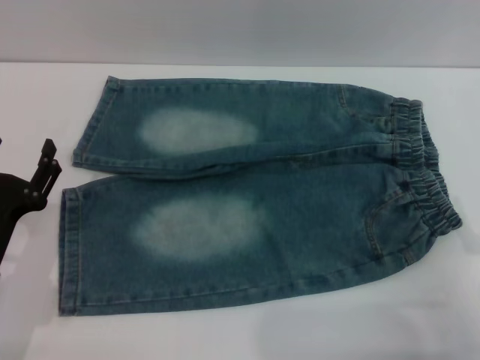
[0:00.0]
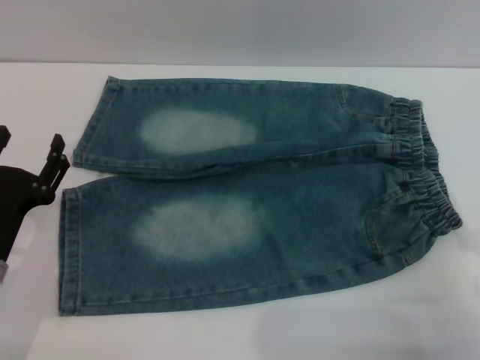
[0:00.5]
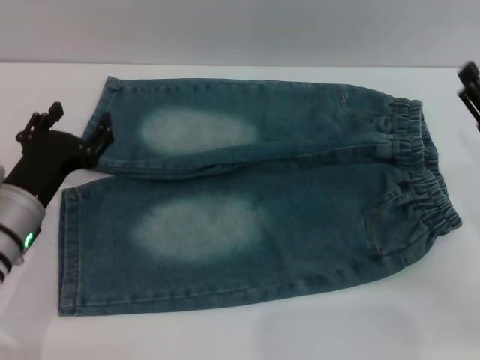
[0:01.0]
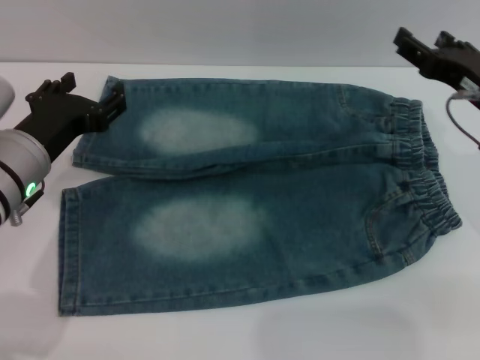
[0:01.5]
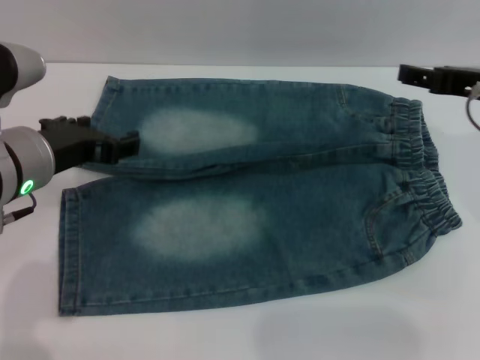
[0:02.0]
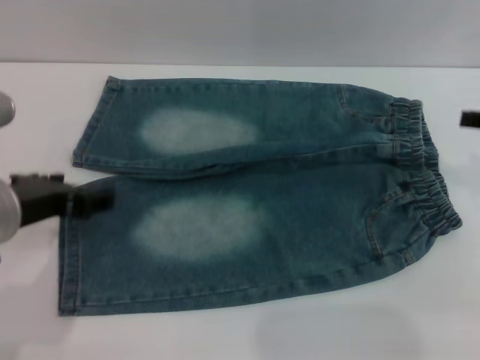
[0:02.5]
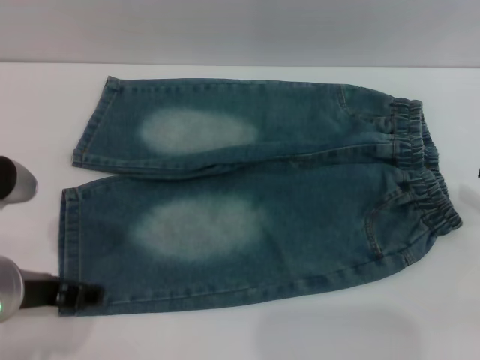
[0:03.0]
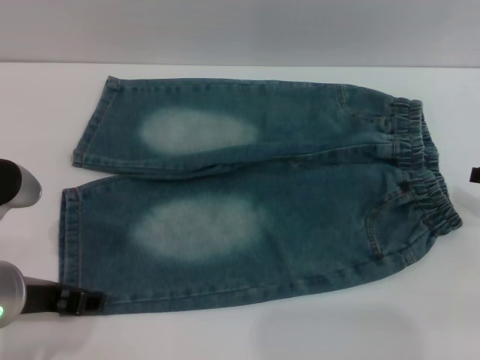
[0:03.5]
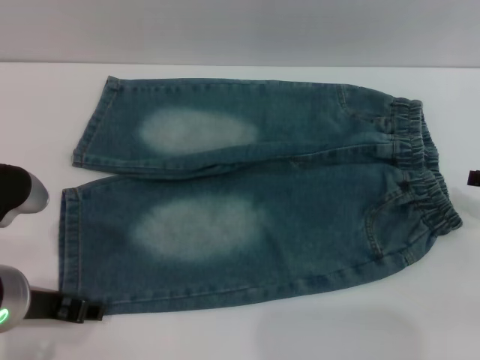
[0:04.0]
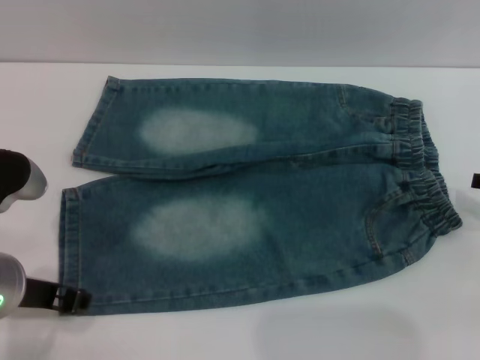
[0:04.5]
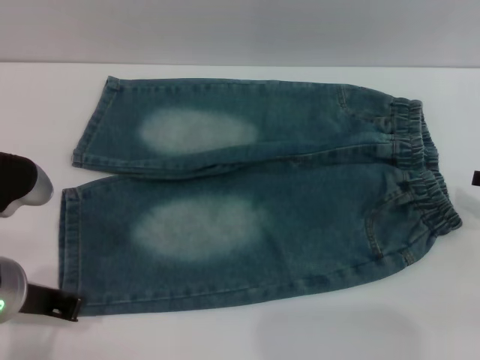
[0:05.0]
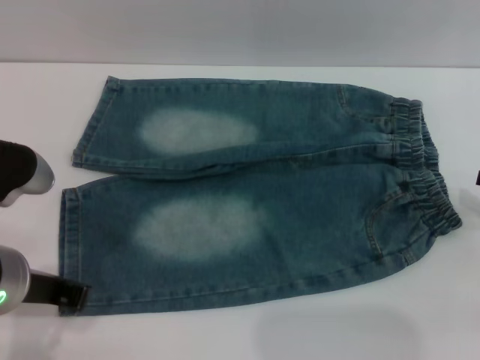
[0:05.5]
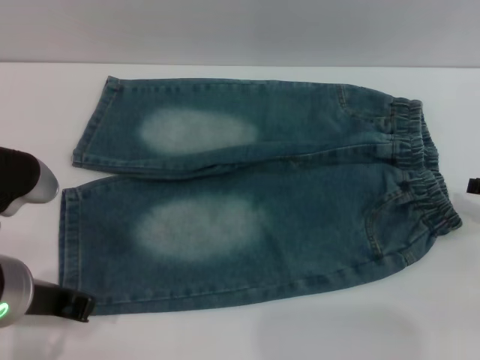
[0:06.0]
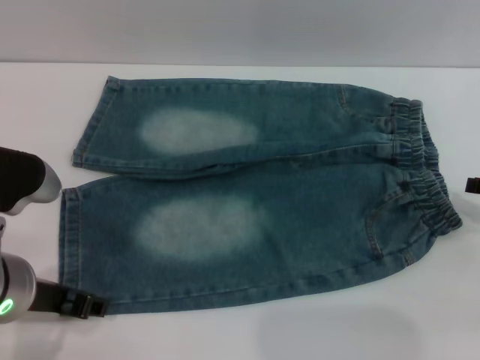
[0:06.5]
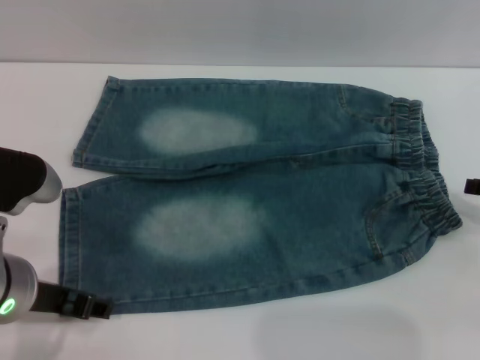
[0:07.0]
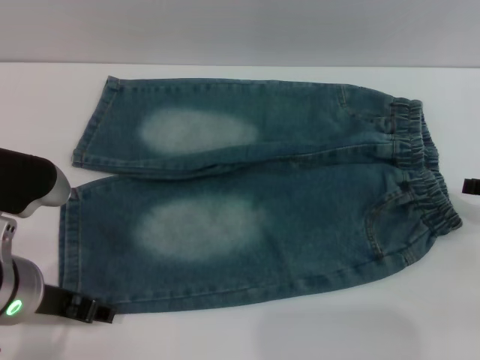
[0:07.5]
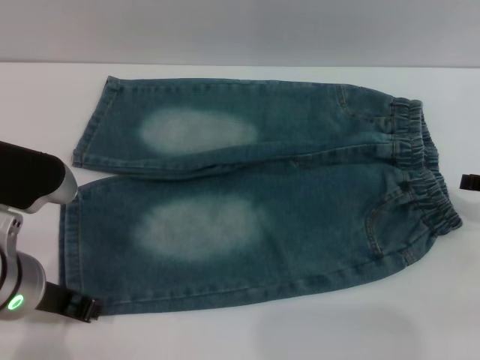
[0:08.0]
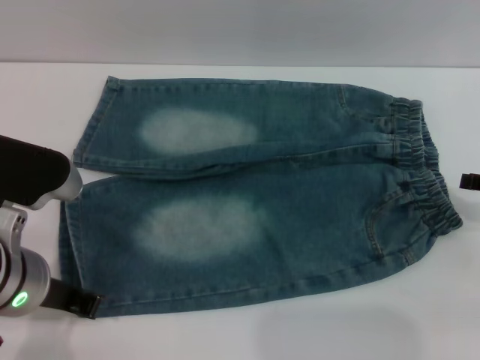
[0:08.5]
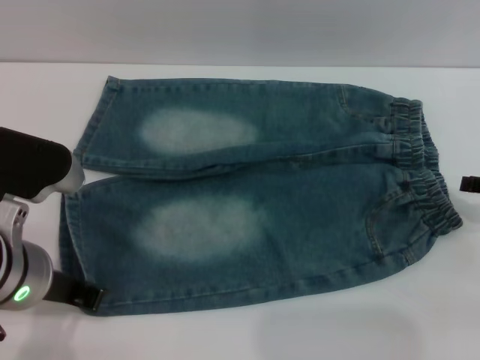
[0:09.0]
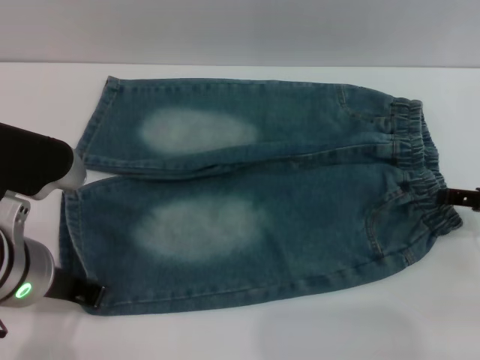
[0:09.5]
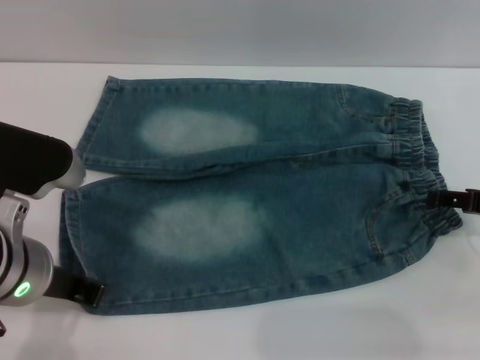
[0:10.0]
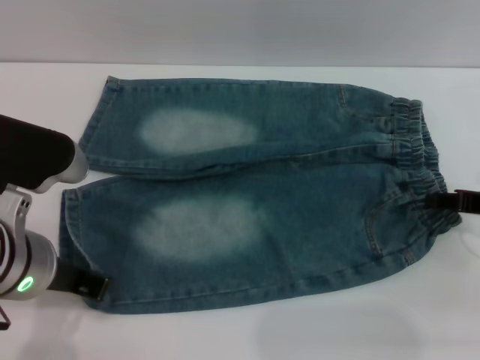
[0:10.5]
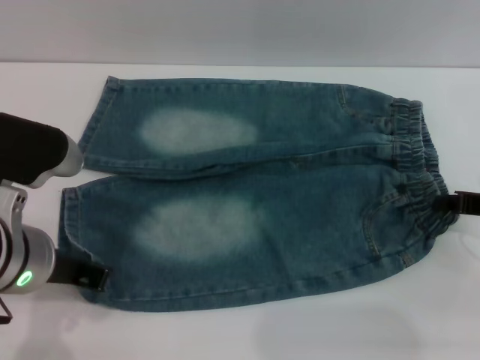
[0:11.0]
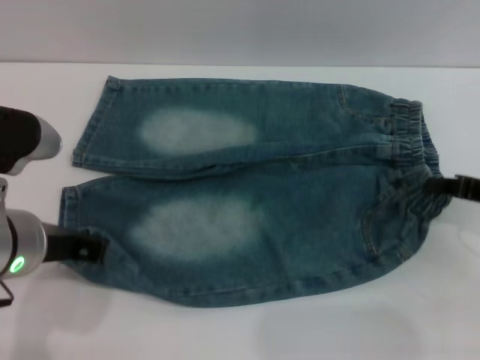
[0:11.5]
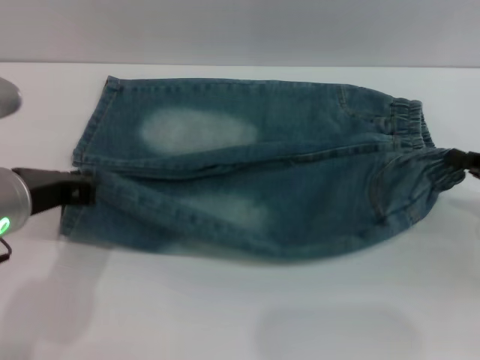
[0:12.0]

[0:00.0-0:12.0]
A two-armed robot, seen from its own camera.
0:00.0 to 0:02.0: The left gripper is displaced upward, forward and to the right by roughly 15 cm. Meanwhile the right gripper heads forward and upward, covering some 25 cm.
0:02.0 to 0:04.0: The right gripper moves to the right, backward and downward, about 10 cm, while the left gripper is displaced backward by approximately 5 cm.
0:04.0 to 0:06.0: The left gripper closes its fingers.
0:06.0 to 0:08.0: The left gripper opens its fingers.
0:08.0 to 0:10.0: The left gripper closes up.
0:10.0 to 0:12.0: The right gripper closes its fingers.

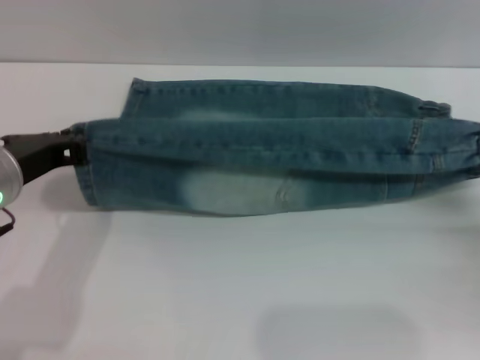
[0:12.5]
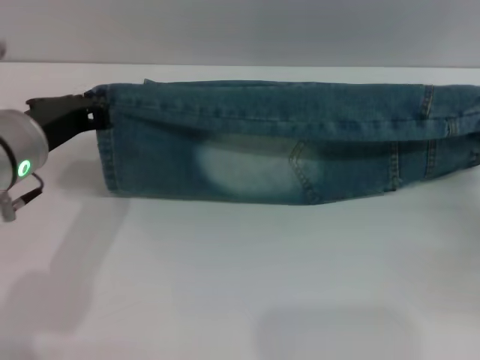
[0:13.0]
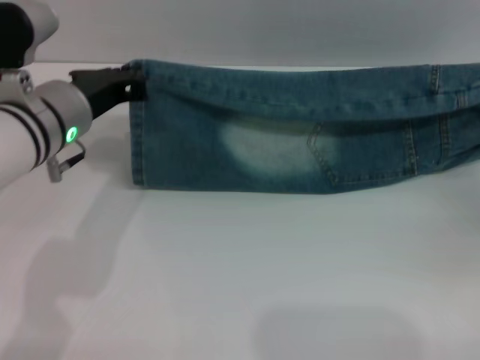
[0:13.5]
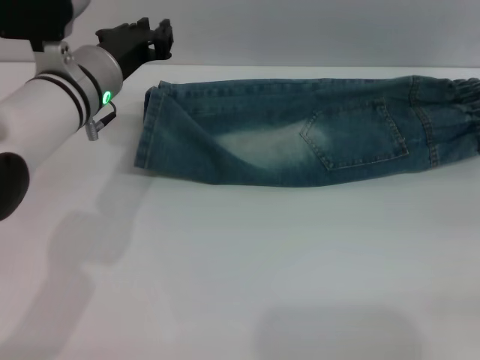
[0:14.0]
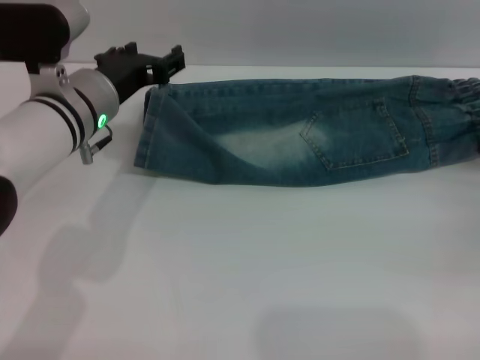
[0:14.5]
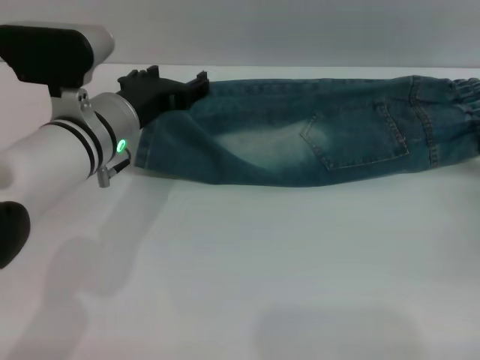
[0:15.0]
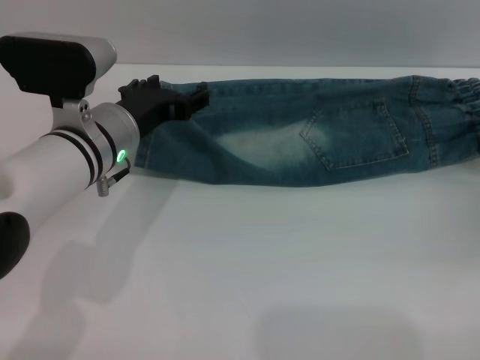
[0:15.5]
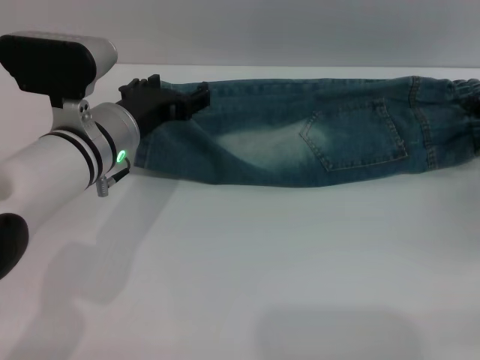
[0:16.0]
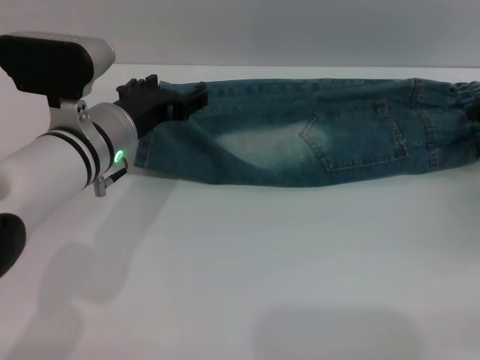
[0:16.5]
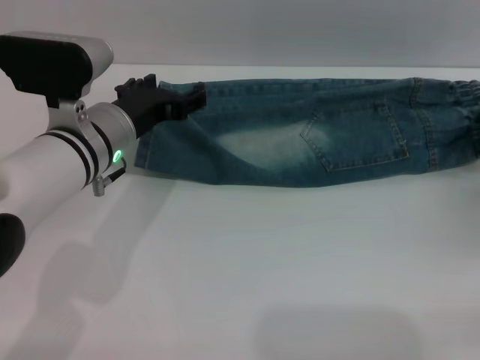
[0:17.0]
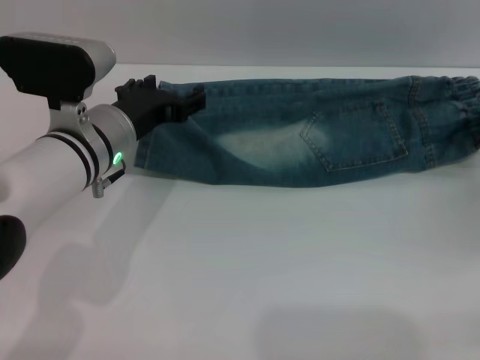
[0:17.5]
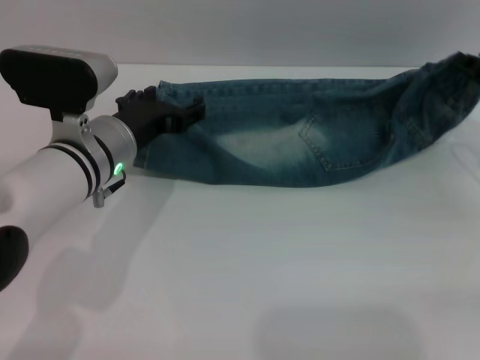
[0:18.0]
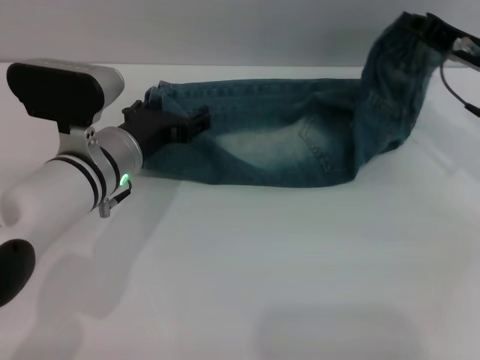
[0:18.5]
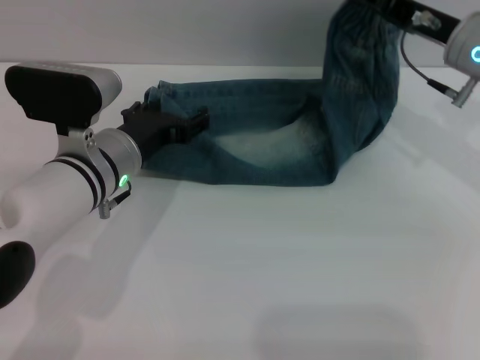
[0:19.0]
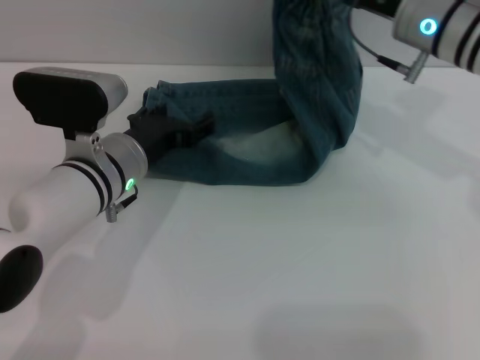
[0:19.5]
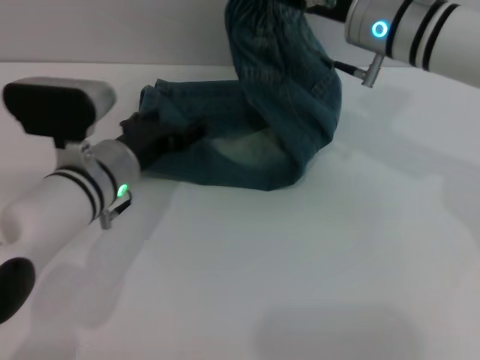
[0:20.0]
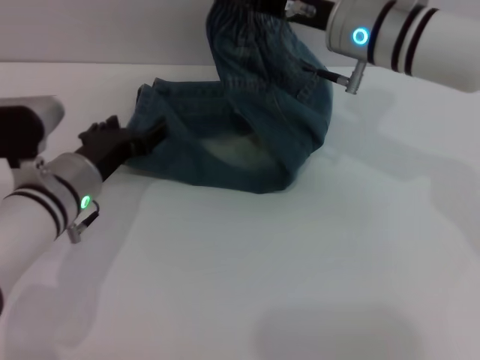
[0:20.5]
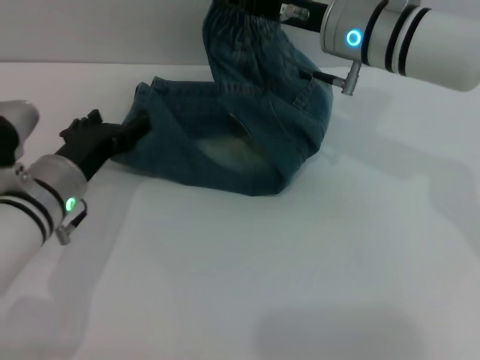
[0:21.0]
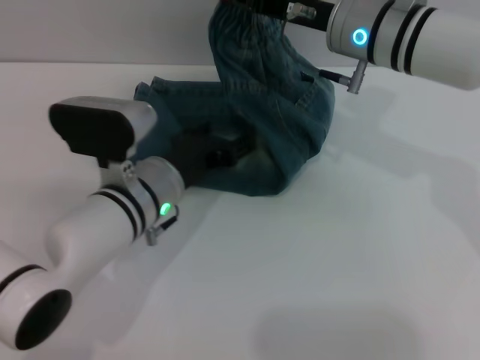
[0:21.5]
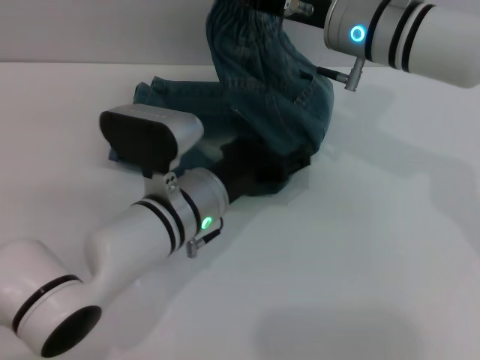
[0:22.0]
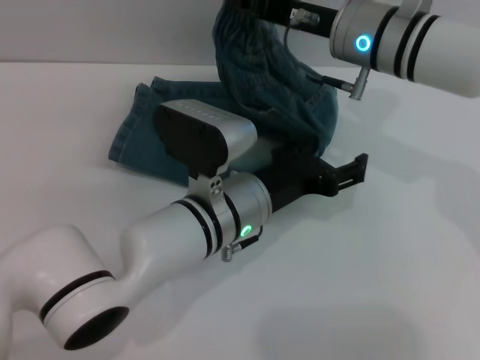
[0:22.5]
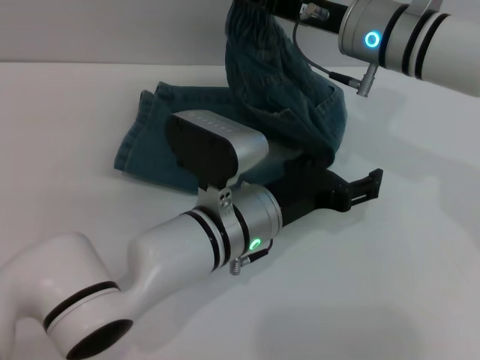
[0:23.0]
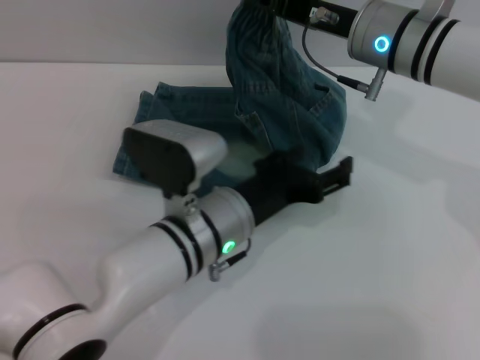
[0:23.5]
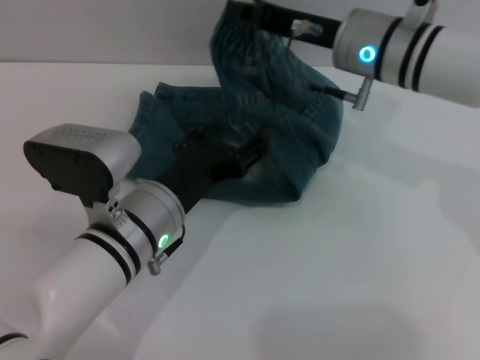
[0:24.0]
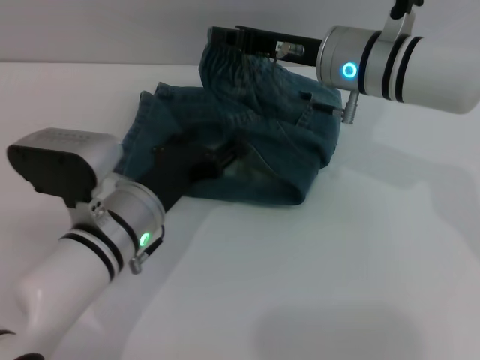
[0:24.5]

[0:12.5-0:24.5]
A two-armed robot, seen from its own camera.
0:12.5 to 0:14.5: The right gripper shifts roughly 5 cm forward, and opens; the left gripper shifts roughly 10 cm forward and to the right, and opens up.
0:14.5 to 0:16.5: The grippers move only a little.
0:16.5 to 0:18.5: The right gripper goes roughly 15 cm upward, to the left and forward, and closes.
0:18.5 to 0:20.5: The right gripper moves to the left, some 15 cm.
0:20.5 to 0:22.5: The left gripper shifts roughly 15 cm to the right.
0:22.5 to 0:24.5: The left gripper goes approximately 10 cm to the left.

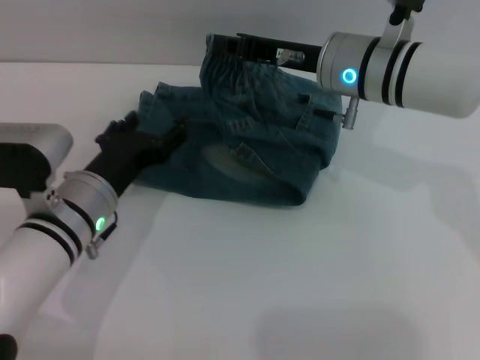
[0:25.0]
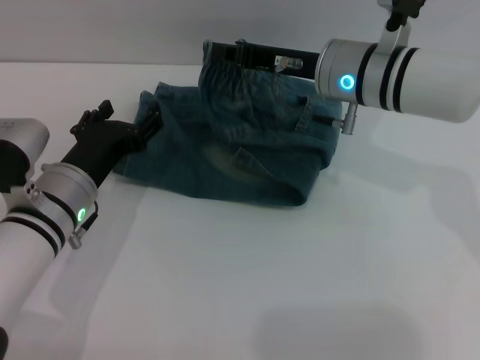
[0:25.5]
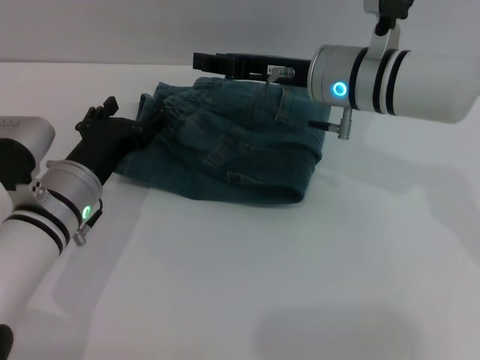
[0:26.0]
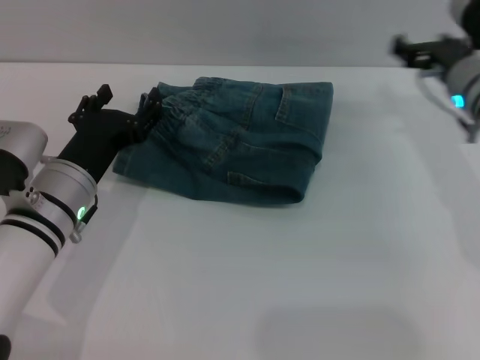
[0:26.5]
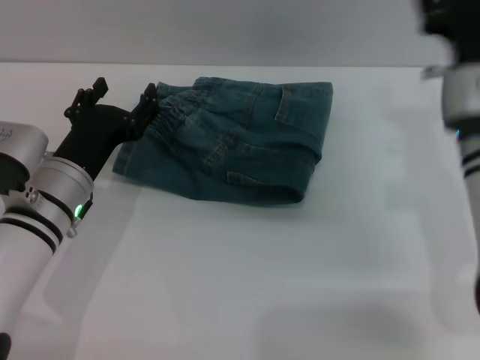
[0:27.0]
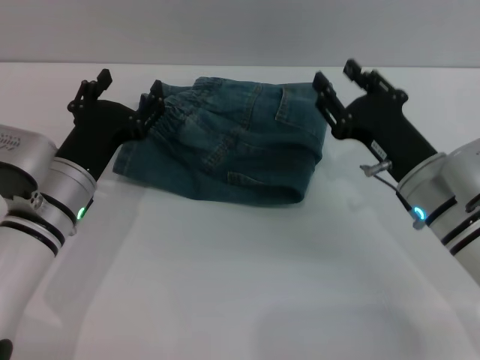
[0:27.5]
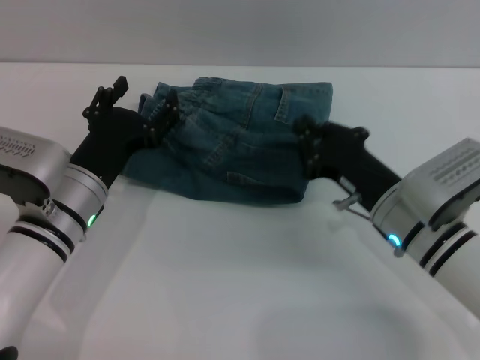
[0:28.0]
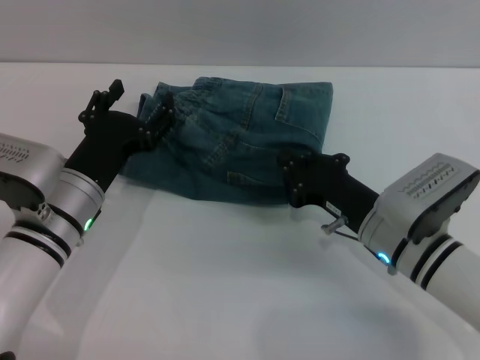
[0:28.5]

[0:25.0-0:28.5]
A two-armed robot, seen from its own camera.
0:25.0 to 0:27.0: The right gripper goes approximately 10 cm to the right and backward, and opens.
0:27.0 to 0:28.5: The right gripper moves downward and backward, approximately 10 cm, and closes.
